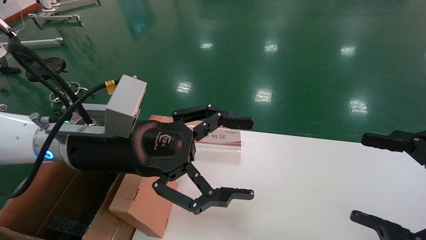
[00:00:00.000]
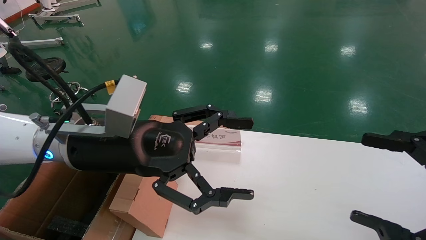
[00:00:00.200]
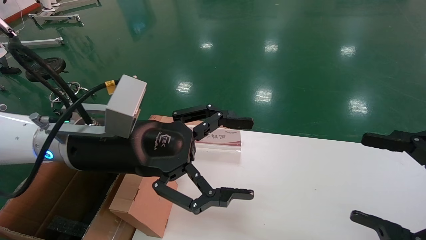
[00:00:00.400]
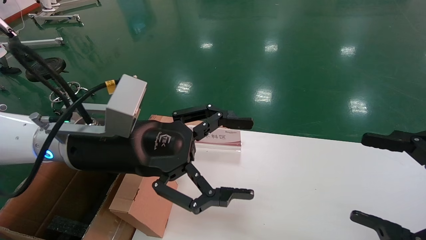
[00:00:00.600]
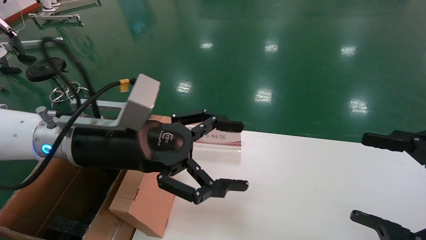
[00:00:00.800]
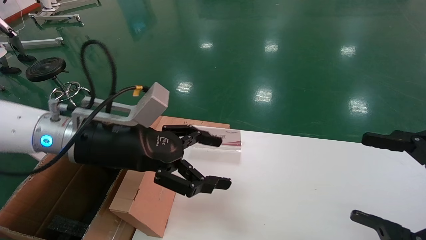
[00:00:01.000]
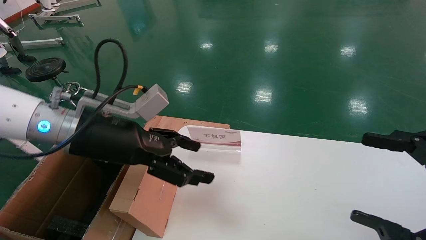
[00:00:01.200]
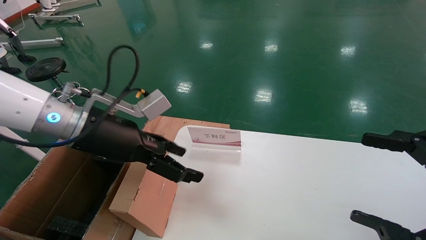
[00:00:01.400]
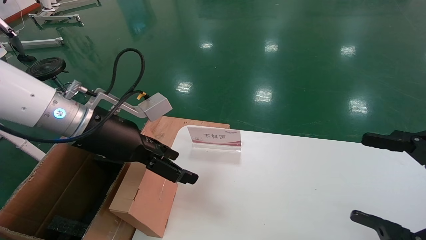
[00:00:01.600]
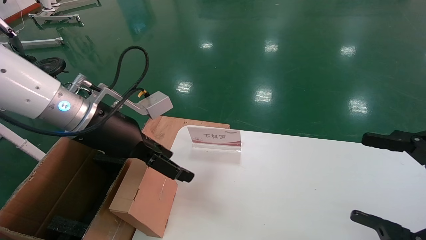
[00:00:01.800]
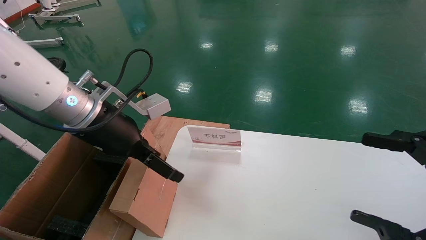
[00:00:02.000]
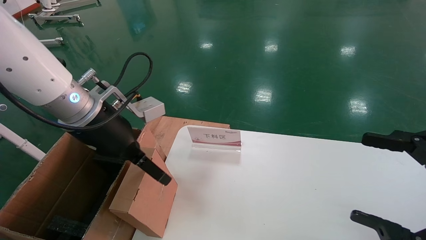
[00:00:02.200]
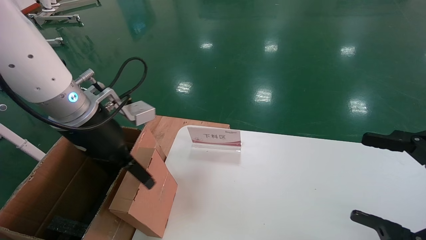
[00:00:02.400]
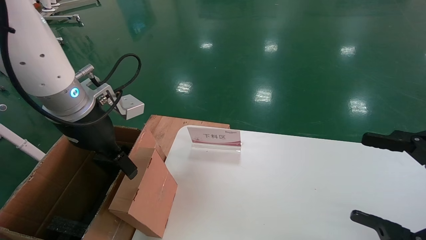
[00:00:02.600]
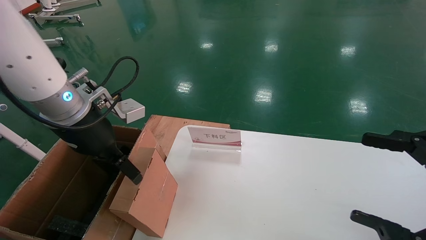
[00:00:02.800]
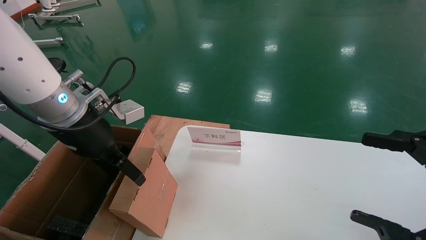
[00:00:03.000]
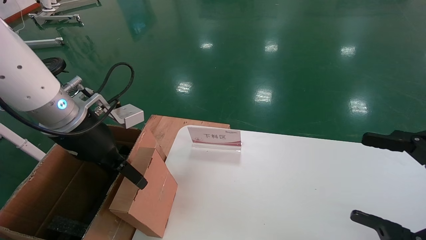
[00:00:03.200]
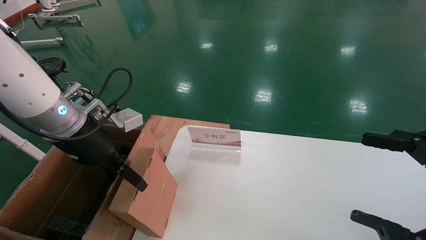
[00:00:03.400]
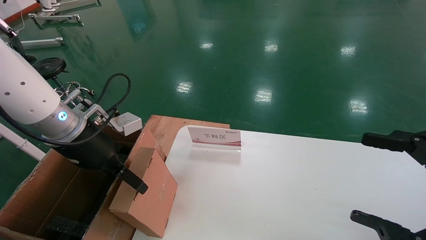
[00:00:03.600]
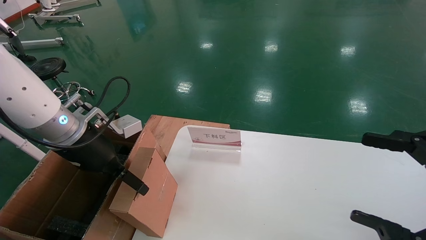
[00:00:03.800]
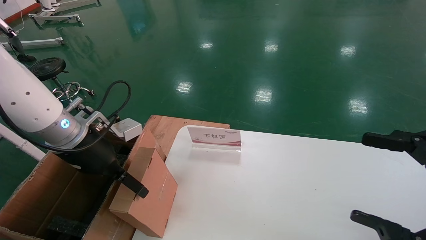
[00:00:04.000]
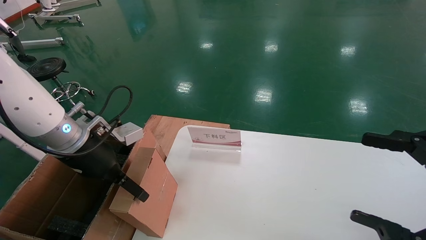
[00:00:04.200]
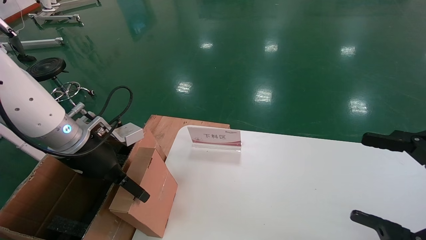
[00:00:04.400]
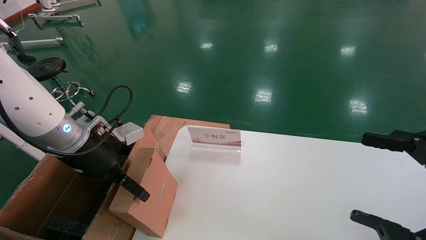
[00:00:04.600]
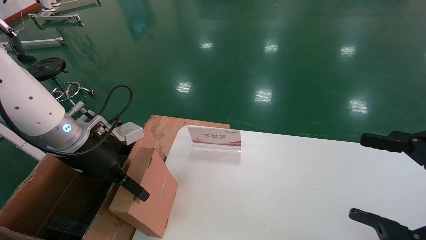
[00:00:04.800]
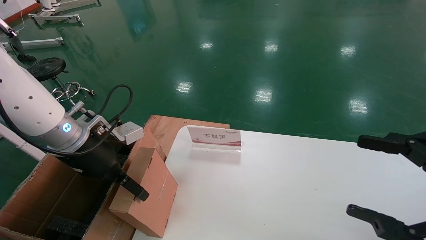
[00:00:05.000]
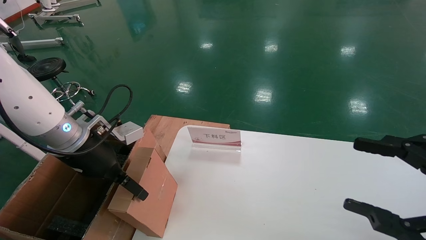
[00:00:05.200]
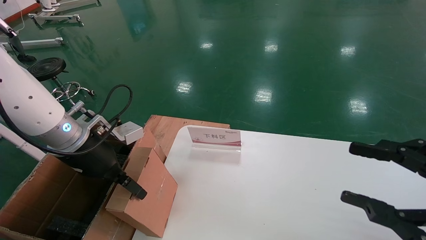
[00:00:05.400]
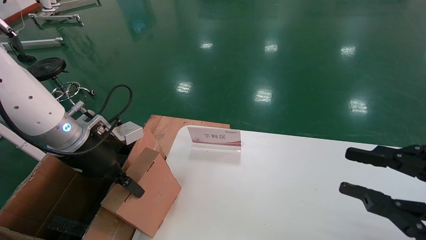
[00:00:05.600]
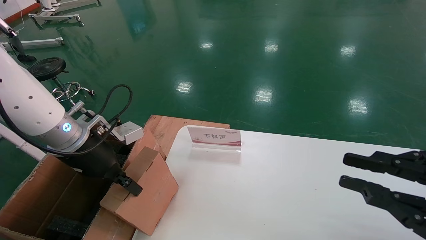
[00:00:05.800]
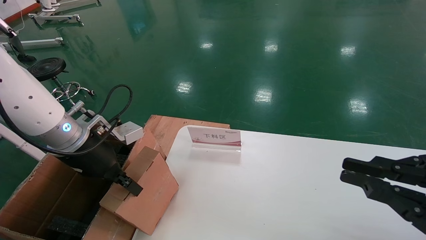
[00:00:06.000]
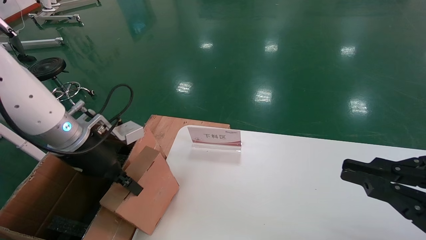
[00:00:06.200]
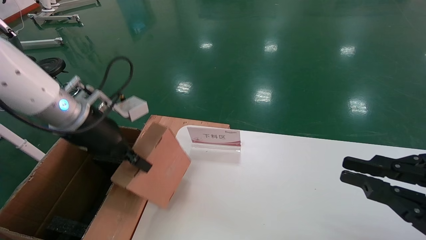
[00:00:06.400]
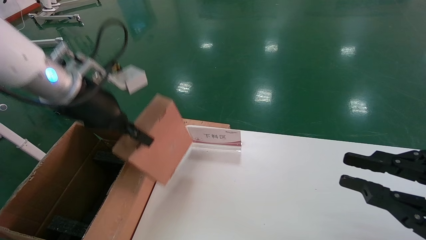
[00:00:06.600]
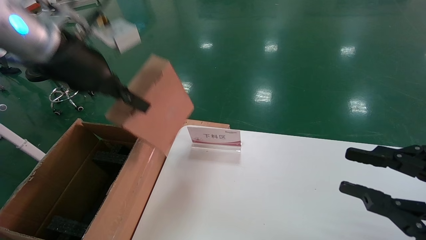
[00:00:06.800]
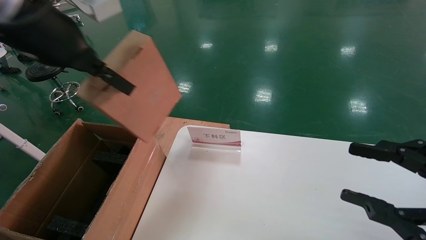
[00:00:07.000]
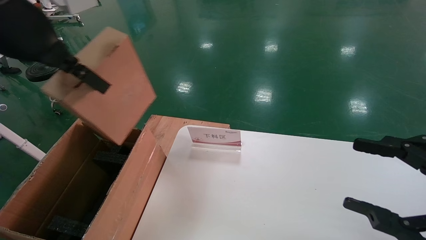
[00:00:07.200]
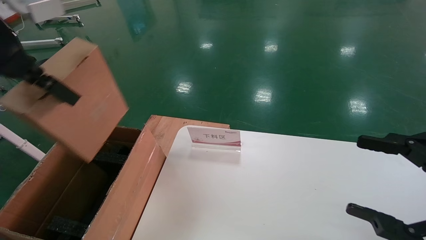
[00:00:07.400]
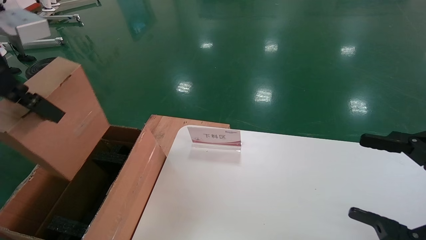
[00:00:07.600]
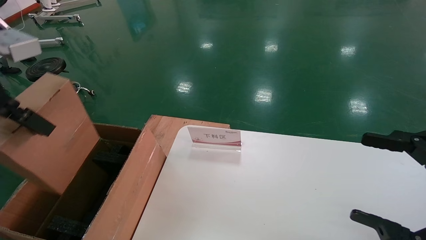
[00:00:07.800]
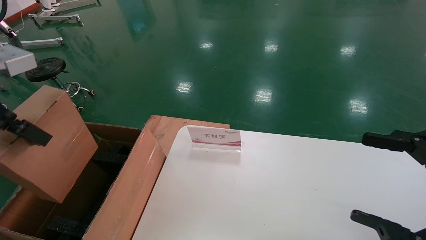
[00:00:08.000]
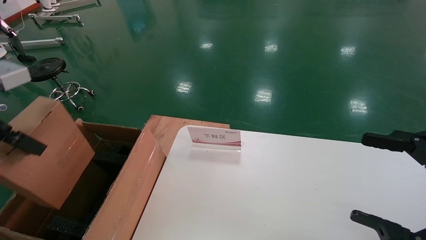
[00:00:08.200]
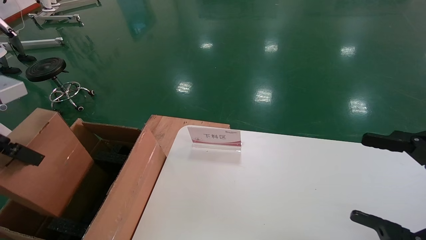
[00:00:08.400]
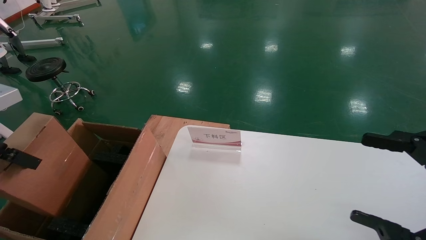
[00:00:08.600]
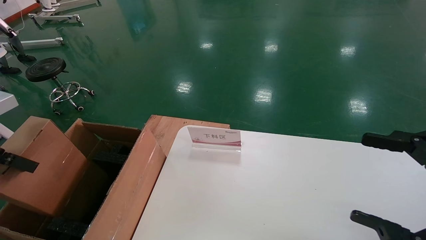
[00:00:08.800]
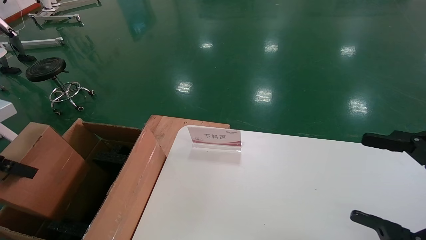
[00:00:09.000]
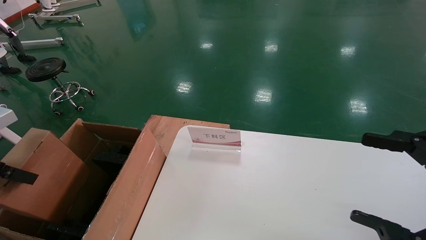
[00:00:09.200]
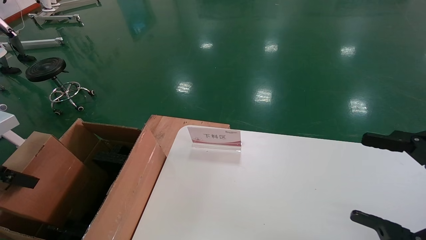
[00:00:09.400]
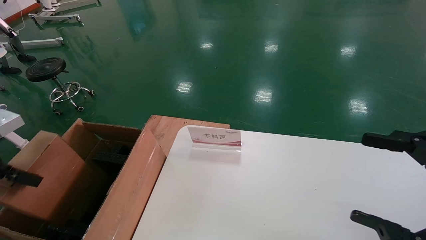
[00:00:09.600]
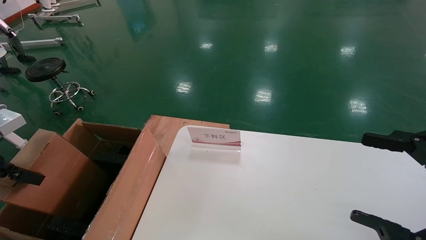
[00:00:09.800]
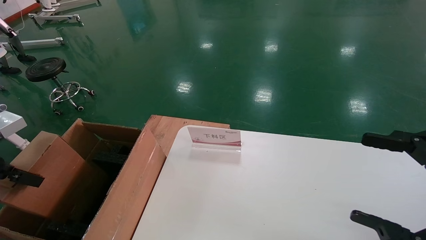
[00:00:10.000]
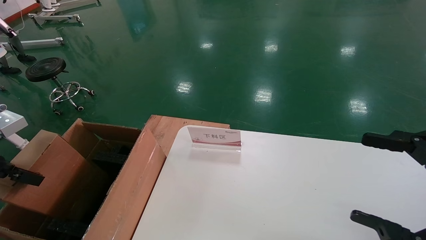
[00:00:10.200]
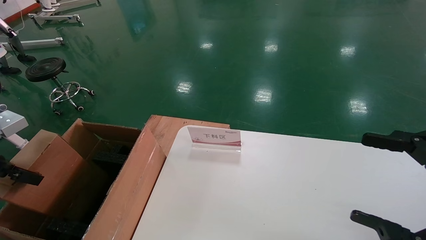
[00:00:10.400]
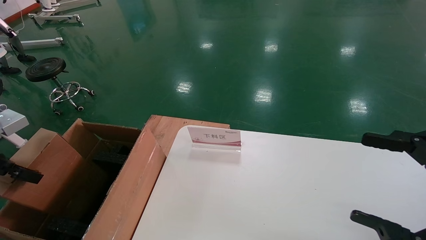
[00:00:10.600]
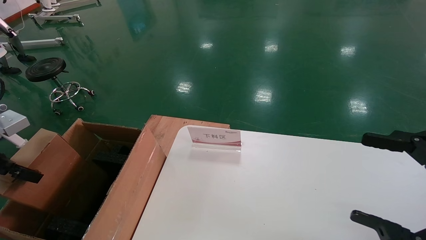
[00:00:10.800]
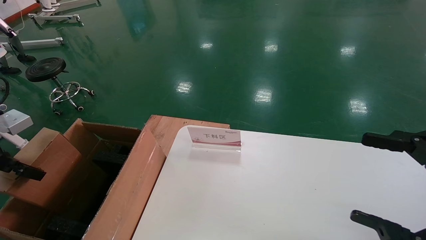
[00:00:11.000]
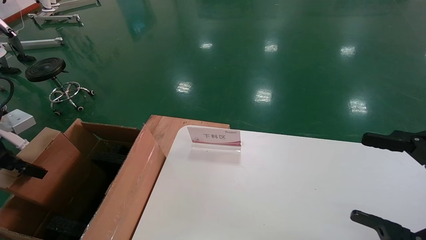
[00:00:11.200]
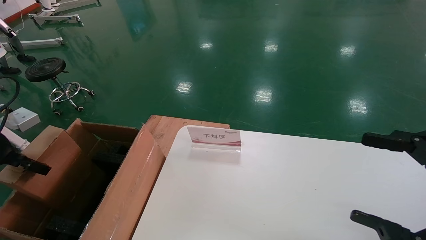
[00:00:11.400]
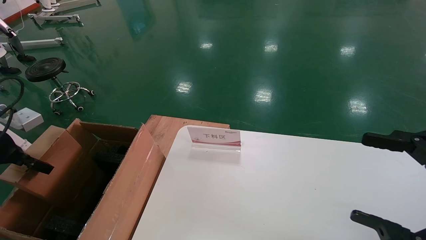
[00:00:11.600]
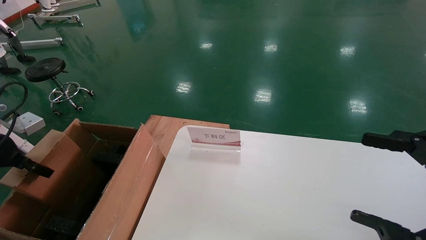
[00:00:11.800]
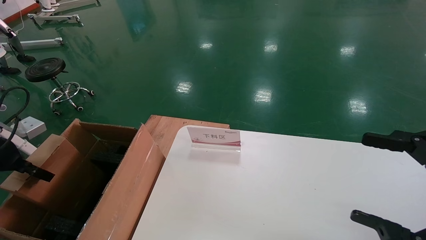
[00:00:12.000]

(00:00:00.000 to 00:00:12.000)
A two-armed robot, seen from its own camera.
Task of the whole recording: pick up the small cardboard box and load it into the large cardboard box.
Step, 00:00:00.600 - 00:00:05.800: Pick up the mouse and power cord box.
00:00:00.000 - 00:00:01.600: The left gripper shifts by roughly 5 cm.
00:00:03.000 - 00:00:04.400: The left gripper moves downward, roughly 5 cm.
00:00:04.400 - 00:00:06.000: The left gripper closes up. Meanwhile the right gripper closes its fingers.
00:00:06.000 - 00:00:07.600: The right gripper opens up. The left gripper heads upward and backward, covering some 20 cm.
00:00:07.600 - 00:00:09.000: The left gripper shifts some 20 cm to the left and downward.
00:00:09.000 - 00:00:10.400: The left gripper moves approximately 5 cm.
00:00:10.400 - 00:00:12.000: The left gripper is displaced forward by approximately 5 cm.

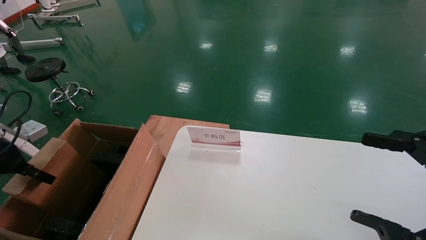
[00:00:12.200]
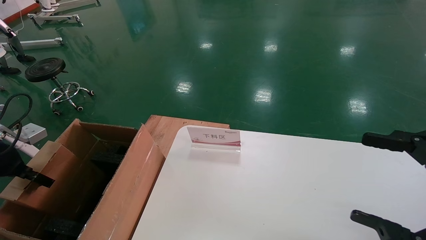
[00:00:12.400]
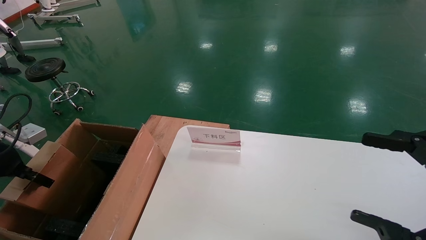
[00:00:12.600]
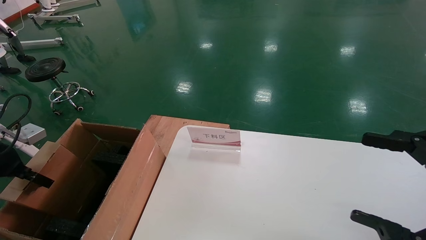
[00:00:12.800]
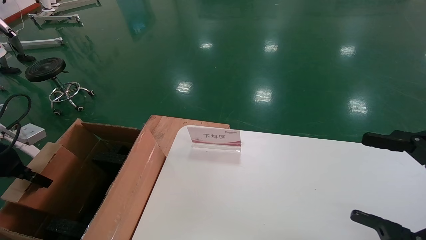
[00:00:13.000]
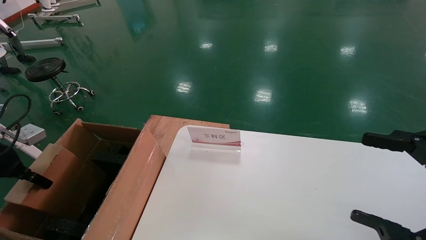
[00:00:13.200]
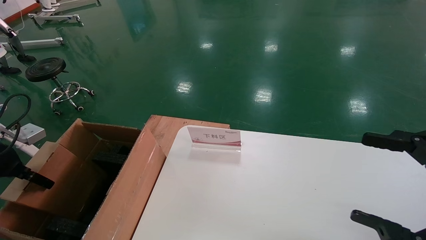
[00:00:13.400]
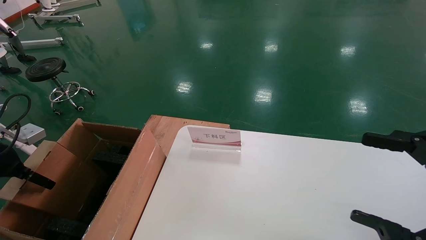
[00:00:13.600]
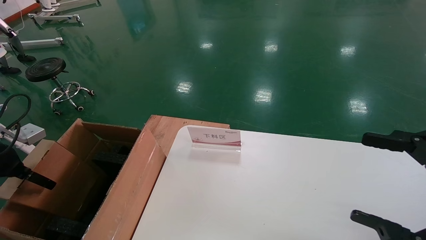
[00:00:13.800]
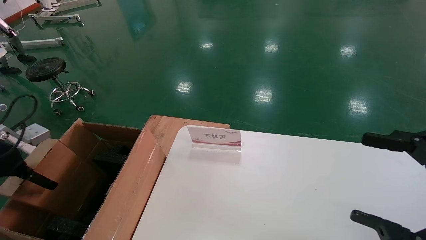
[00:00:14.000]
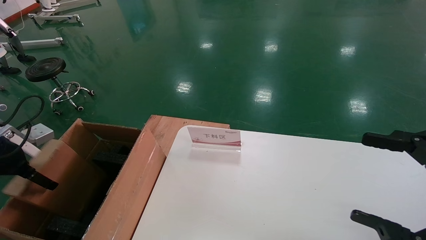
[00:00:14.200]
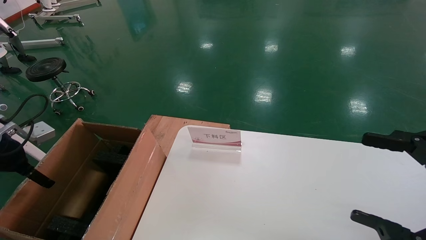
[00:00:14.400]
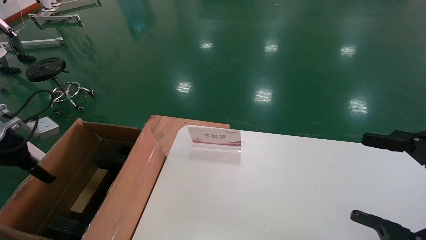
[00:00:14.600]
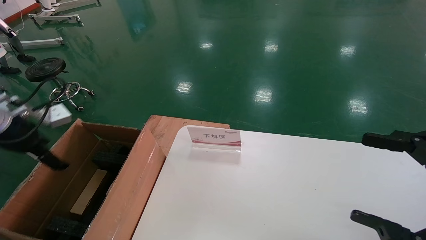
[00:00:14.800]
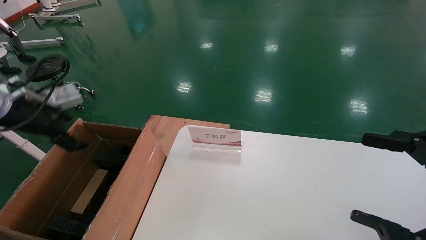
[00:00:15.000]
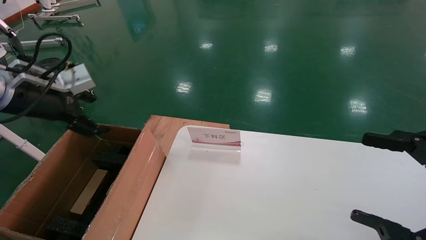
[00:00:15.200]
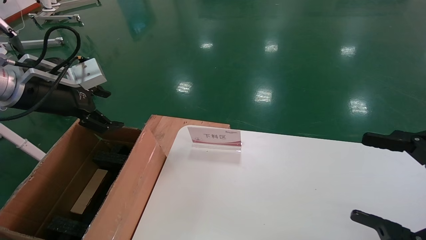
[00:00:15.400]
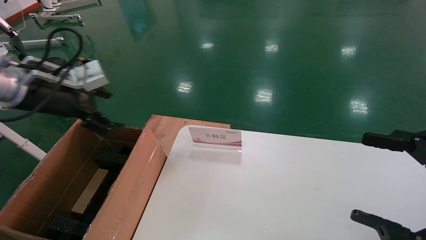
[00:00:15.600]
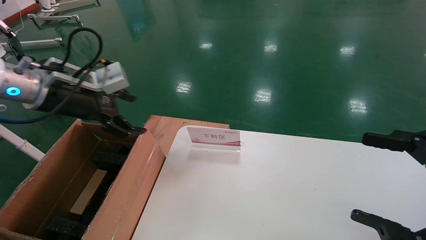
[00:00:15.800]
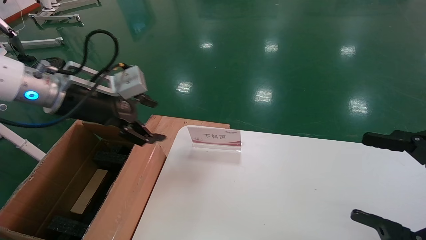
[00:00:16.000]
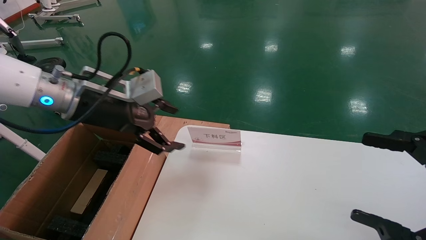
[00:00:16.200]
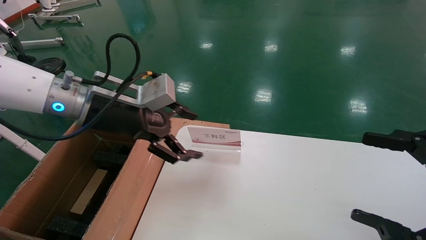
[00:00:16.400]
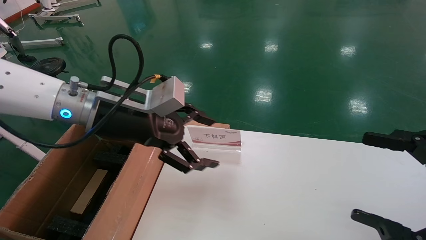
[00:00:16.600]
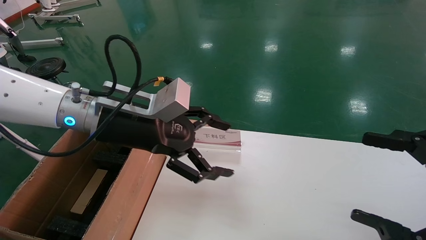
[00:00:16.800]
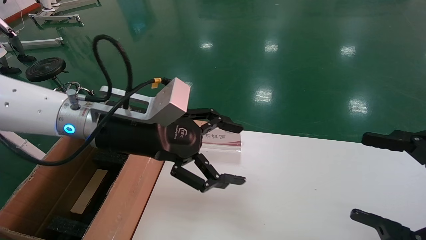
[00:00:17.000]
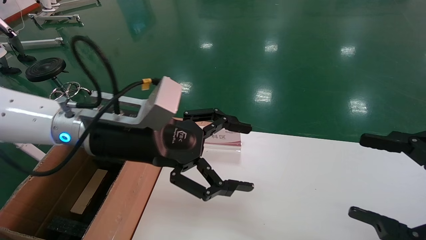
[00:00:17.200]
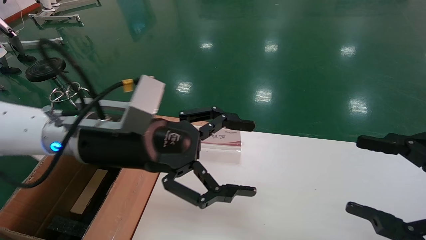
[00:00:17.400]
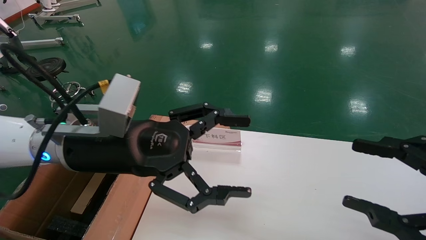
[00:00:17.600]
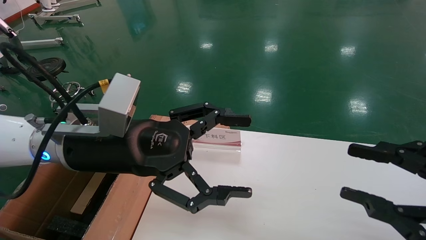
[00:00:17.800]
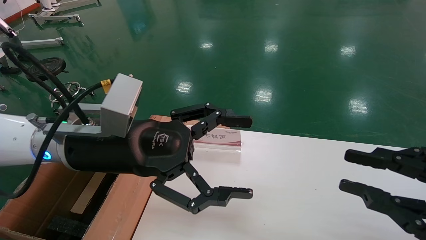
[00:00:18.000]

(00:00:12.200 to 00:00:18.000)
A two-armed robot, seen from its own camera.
Task of the whole recording: pick up the small cardboard box and load it into the large cardboard box.
00:00:12.200 - 00:00:13.600: The left gripper opens its fingers.
00:00:13.600 - 00:00:15.000: The left gripper is displaced upward and to the right by about 10 cm.
00:00:15.000 - 00:00:16.600: The left gripper heads to the right, covering some 20 cm.
00:00:16.600 - 00:00:18.000: The right gripper closes; the left gripper is displaced backward by approximately 5 cm.
